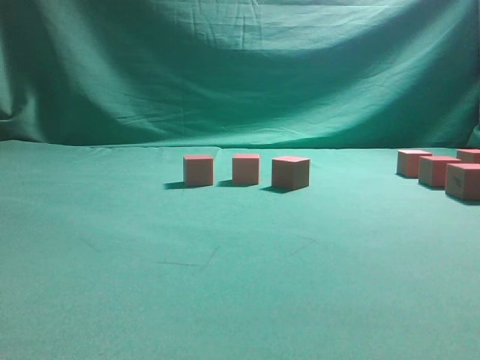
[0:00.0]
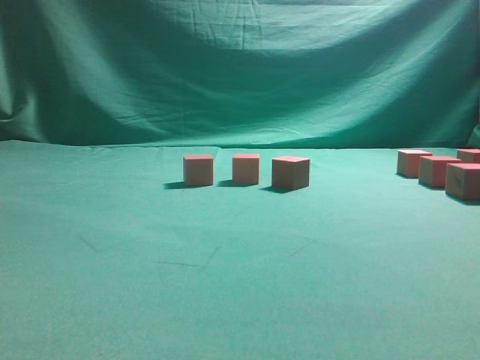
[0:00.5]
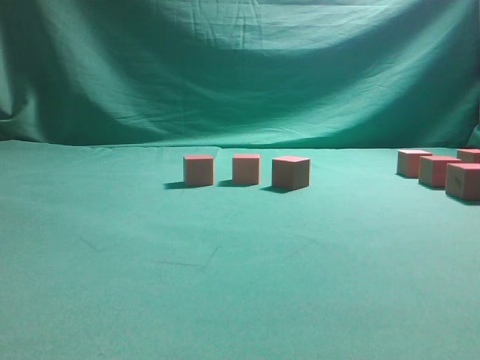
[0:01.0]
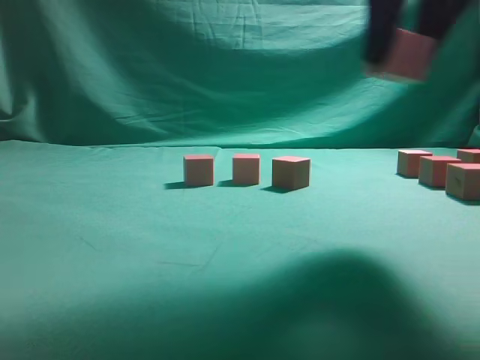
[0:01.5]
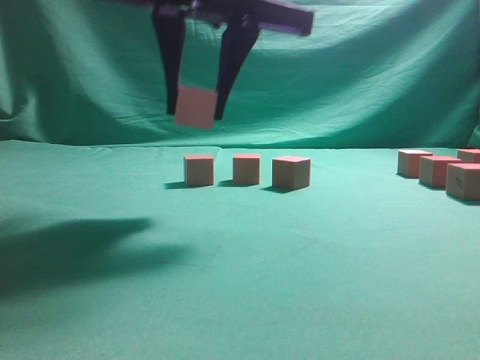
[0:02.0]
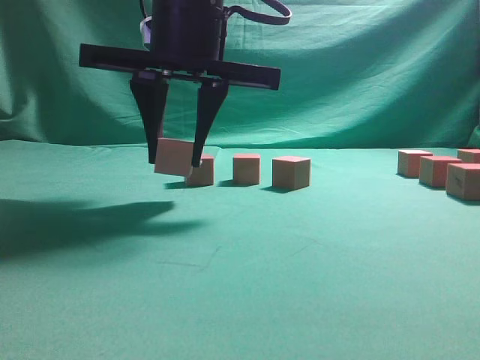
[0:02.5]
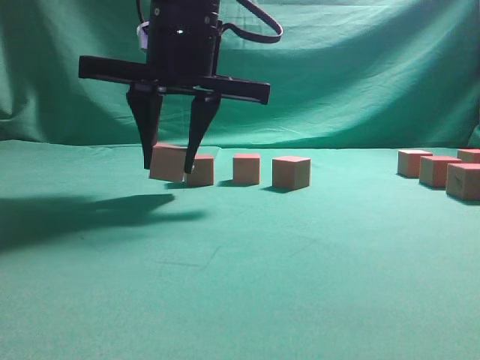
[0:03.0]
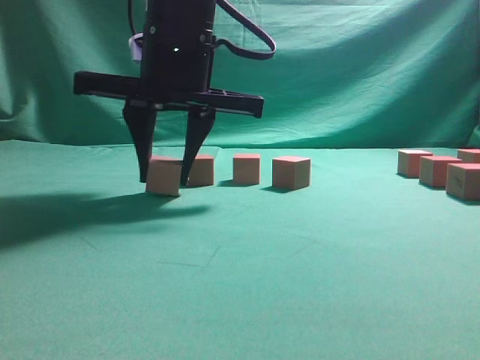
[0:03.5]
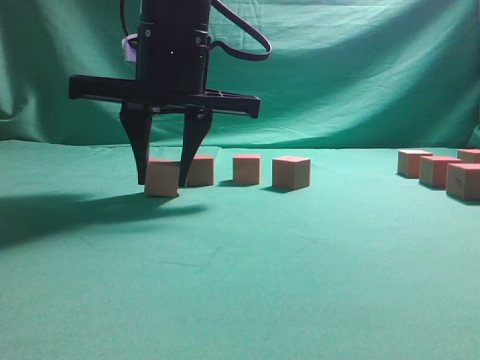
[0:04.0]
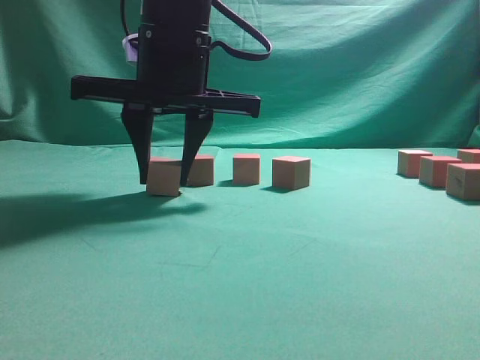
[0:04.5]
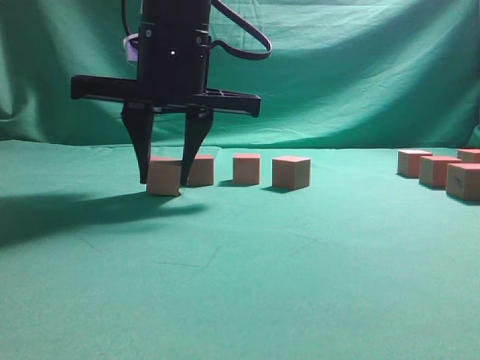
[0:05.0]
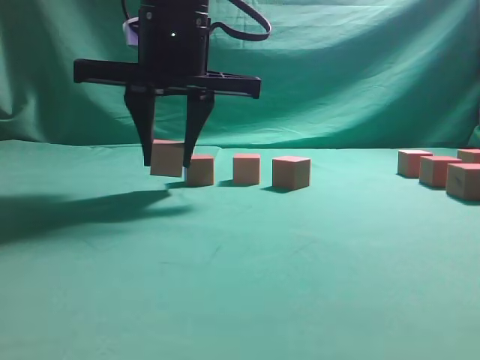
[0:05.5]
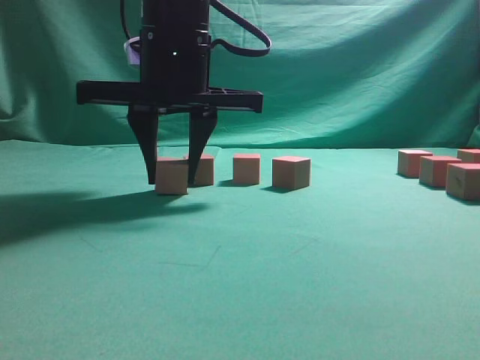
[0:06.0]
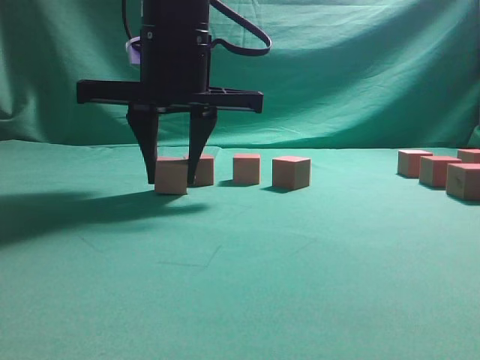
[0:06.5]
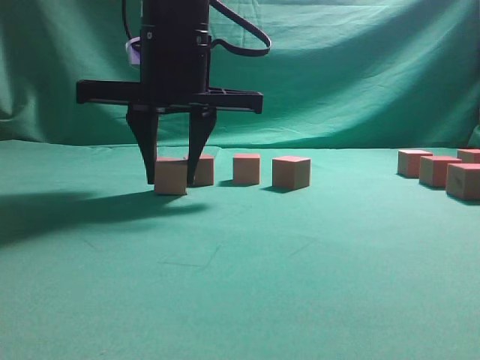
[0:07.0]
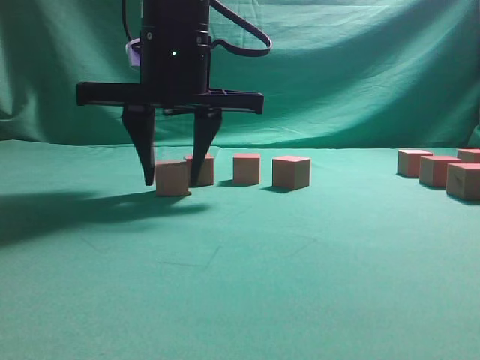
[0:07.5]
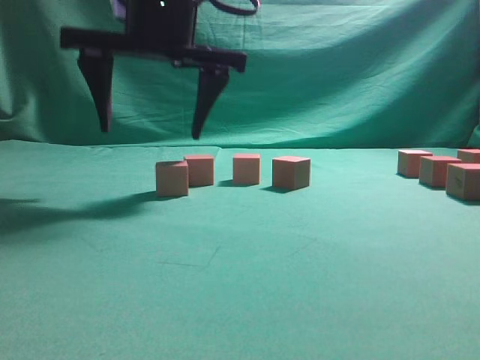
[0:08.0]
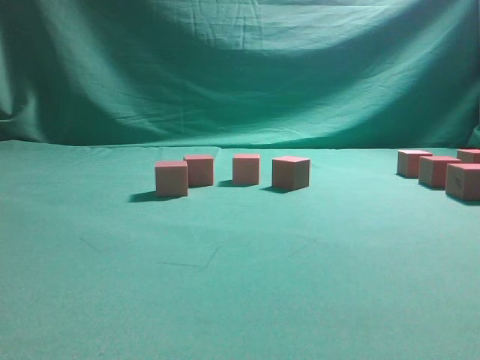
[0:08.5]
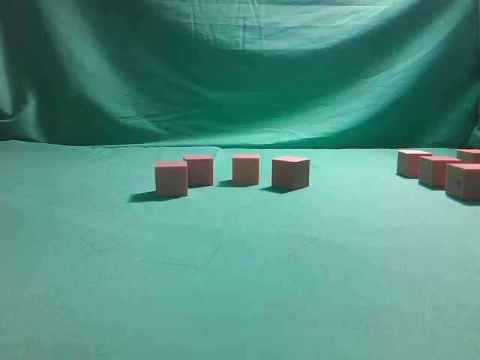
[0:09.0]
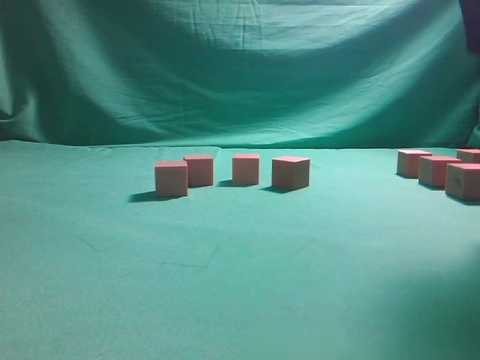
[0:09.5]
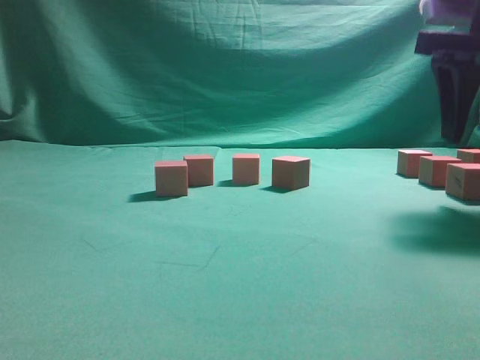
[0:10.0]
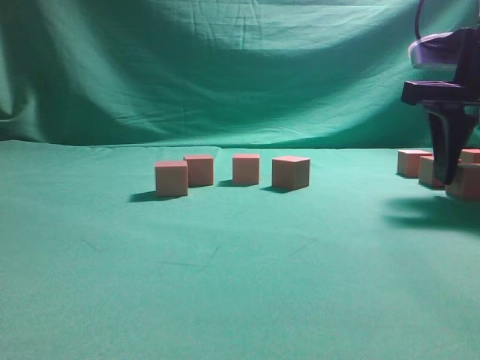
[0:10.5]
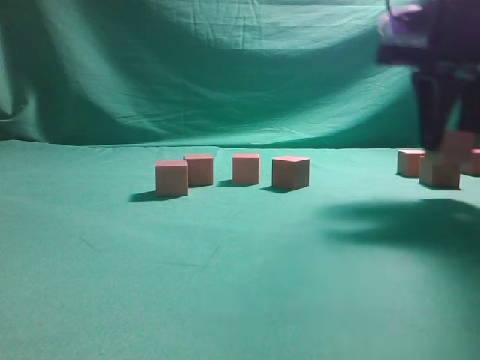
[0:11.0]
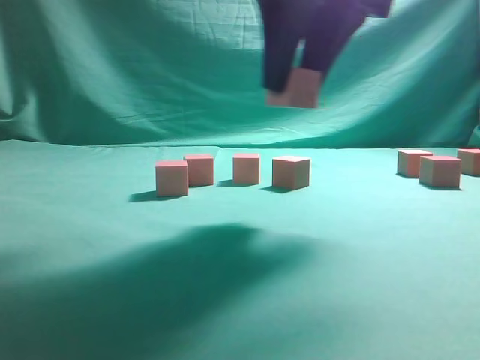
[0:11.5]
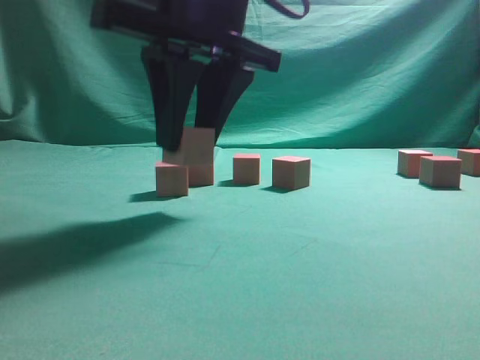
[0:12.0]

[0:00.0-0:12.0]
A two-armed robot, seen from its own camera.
Task of the whole recording: pick up the multiple cubes in two columns one by one and place them in another position on the table.
Step, 0:01.5 to 0:08.0: Place the block at the correct position to assemble the letter S.
Step, 0:08.5 to 0:11.0: Pick up the block on the table.
0:00.0 to 0:02.0: The right gripper is displaced to the left by roughly 30 cm, and closes its fingers.
0:02.0 to 0:04.0: The right gripper travels downward by approximately 5 cm.
0:04.0 to 0:06.0: There are only small adjustments of the grippers.
0:06.0 to 0:08.0: The right gripper moves upward, about 5 cm, and opens.
0:08.0 to 0:10.0: The right gripper shifts about 30 cm to the right.
0:10.0 to 0:12.0: The right gripper goes roughly 25 cm to the left, and closes.

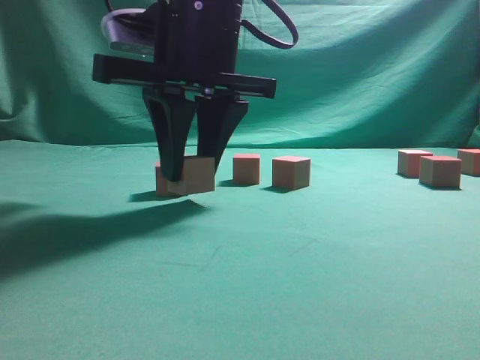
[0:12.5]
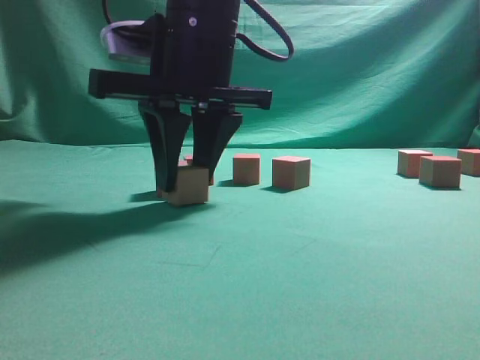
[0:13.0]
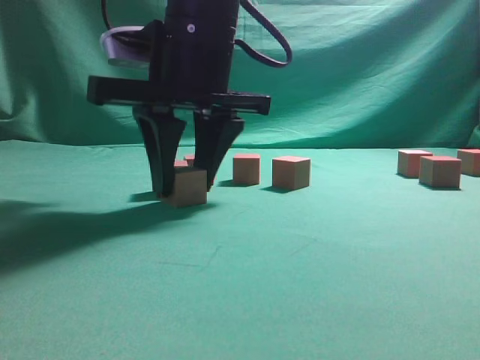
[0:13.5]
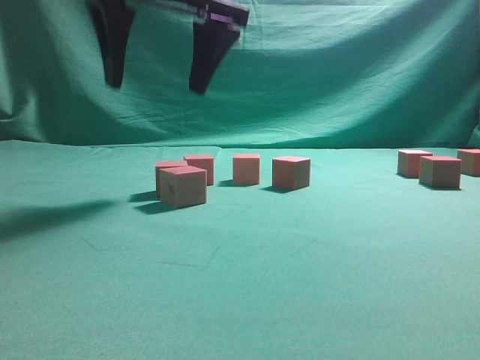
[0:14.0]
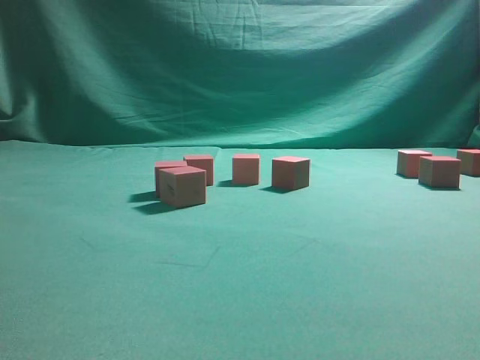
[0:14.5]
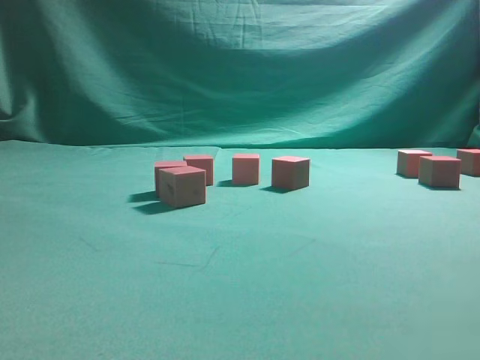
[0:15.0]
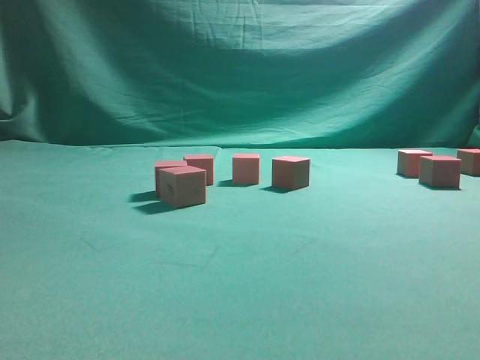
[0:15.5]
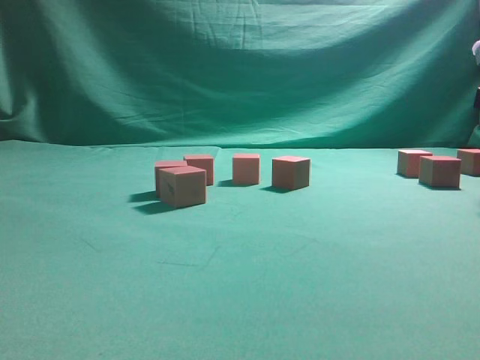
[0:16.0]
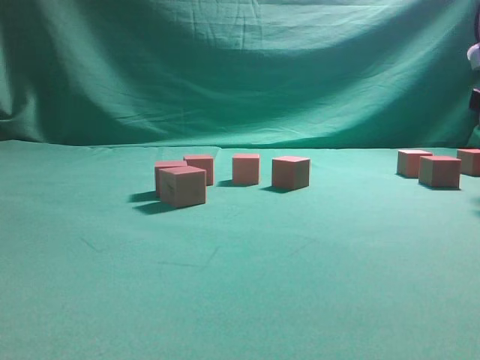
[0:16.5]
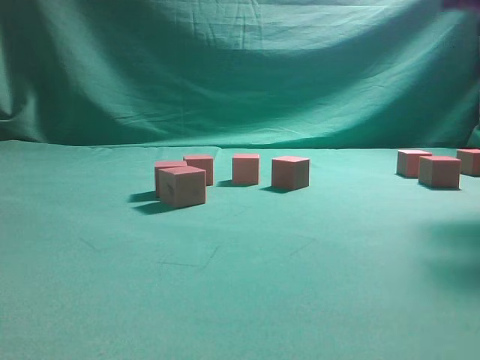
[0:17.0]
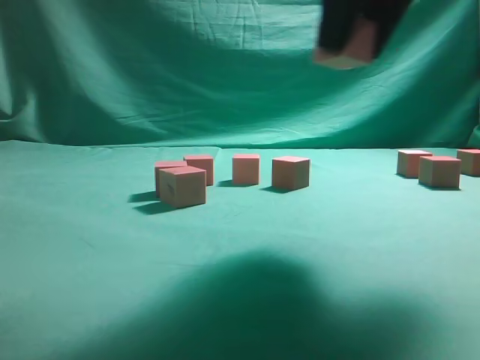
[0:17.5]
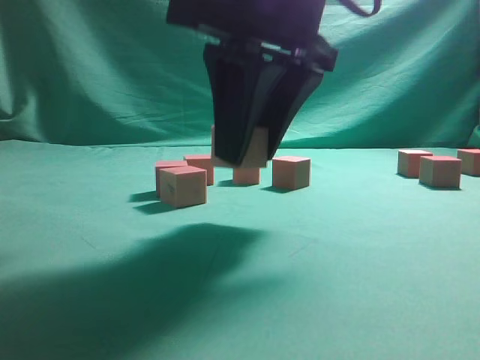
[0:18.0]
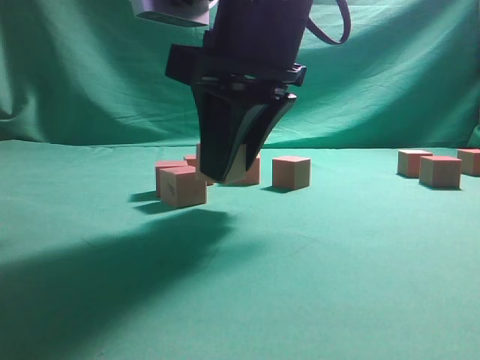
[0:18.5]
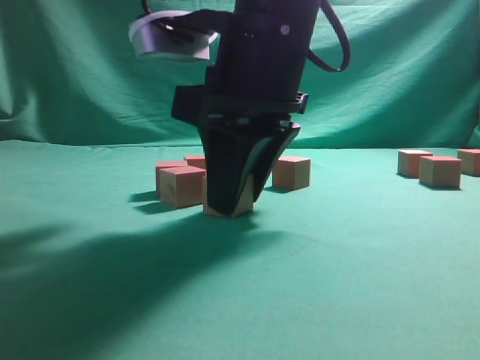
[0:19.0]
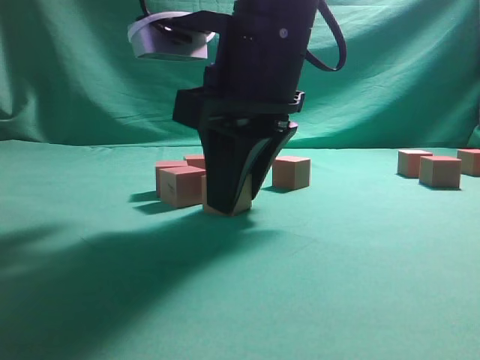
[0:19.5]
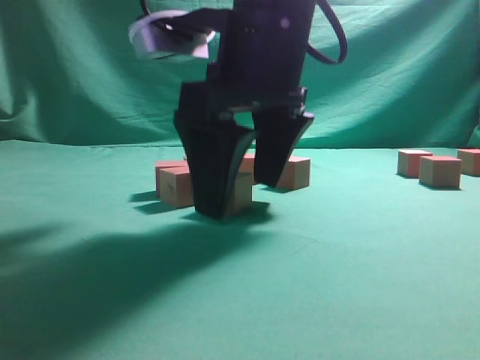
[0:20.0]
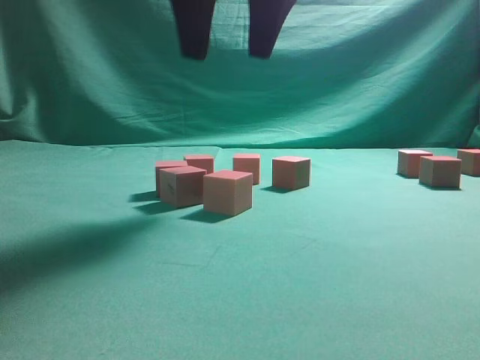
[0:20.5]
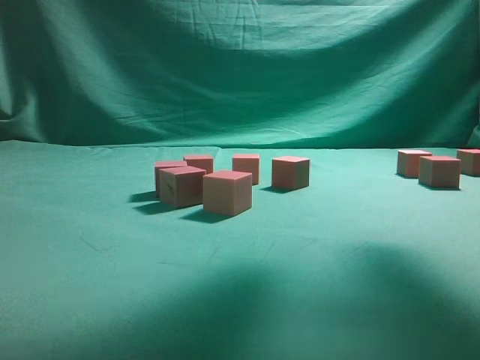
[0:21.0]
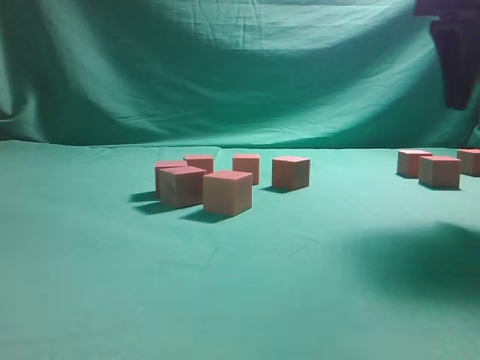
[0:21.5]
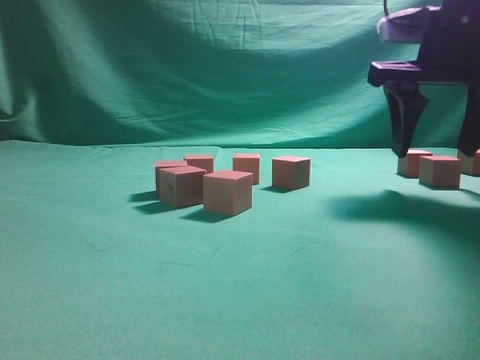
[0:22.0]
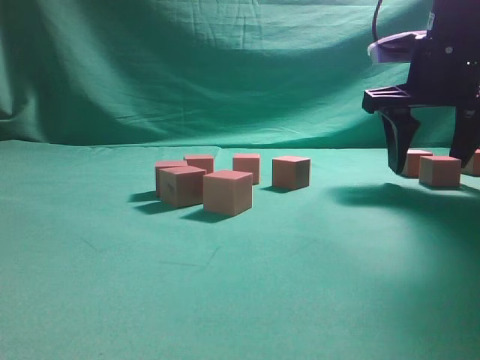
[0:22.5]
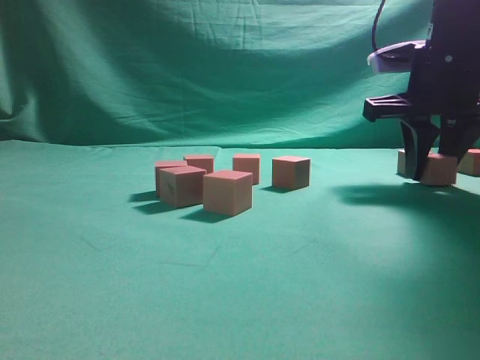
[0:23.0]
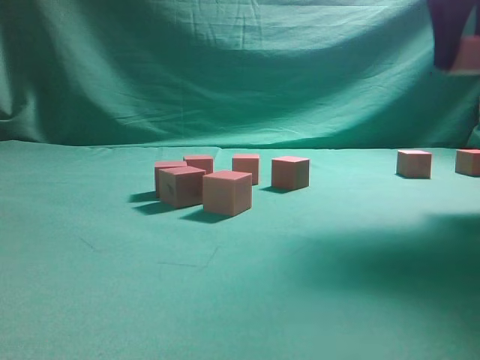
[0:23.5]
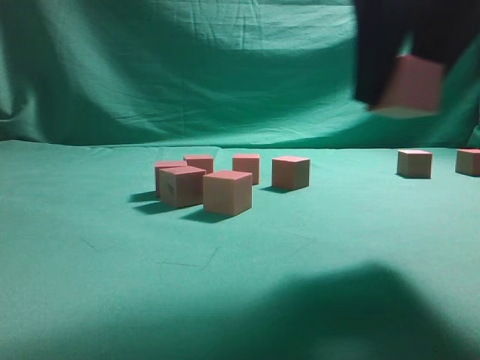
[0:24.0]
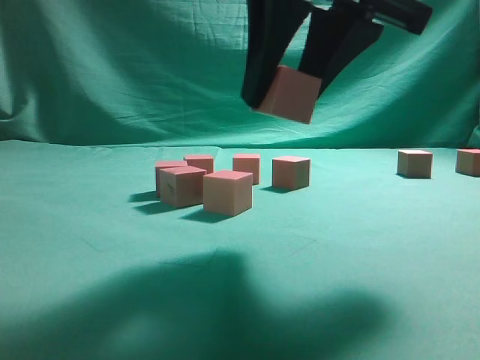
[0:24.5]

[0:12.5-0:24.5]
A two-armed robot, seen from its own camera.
Task of the whole recording: pick up the multiple cubes in two columns one by one and place them in another position on the table.
Step, 0:12.5 to 0:14.0: Place the block at the correct position to assemble the letter S.
Step, 0:17.0 to 0:20.0: Place the block at the correct position to assemble the letter S.
Step, 0:20.5 to 0:23.0: Pick up the block on the table.
0:12.5 to 0:14.5: The right gripper moves upward and to the right, approximately 25 cm, and opens.
0:16.5 to 0:18.5: The right gripper goes some 25 cm to the left.
0:18.5 to 0:20.5: The right gripper moves upward, some 10 cm, and opens its fingers.
0:20.5 to 0:22.5: The right gripper travels to the right and downward by about 25 cm.
0:22.5 to 0:24.5: The right gripper moves backward, to the left and upward, about 20 cm, and closes.

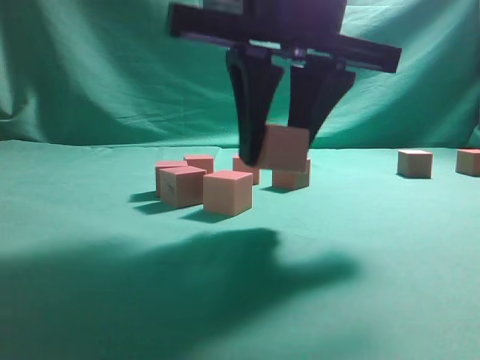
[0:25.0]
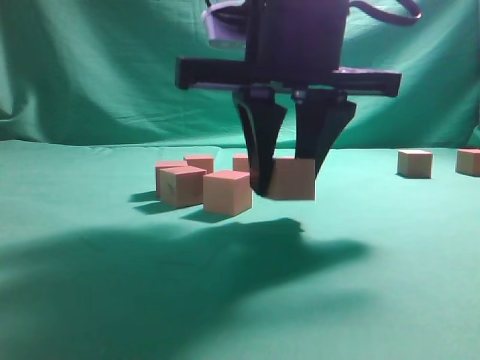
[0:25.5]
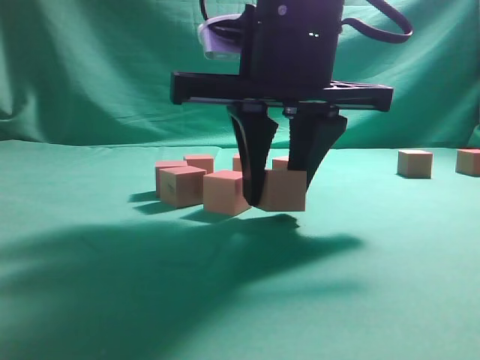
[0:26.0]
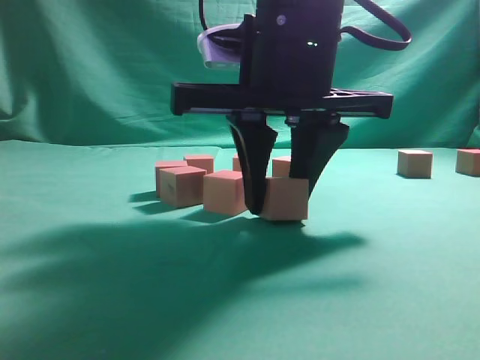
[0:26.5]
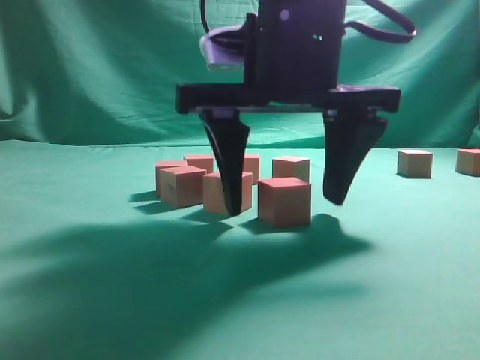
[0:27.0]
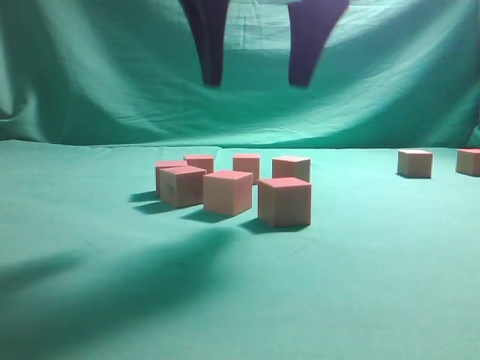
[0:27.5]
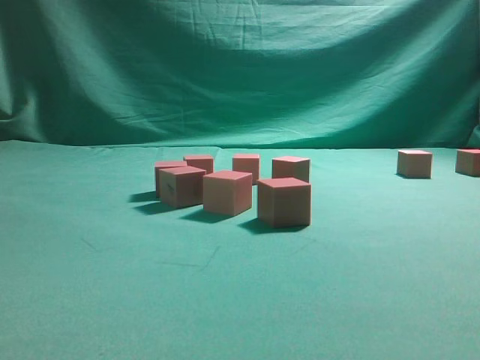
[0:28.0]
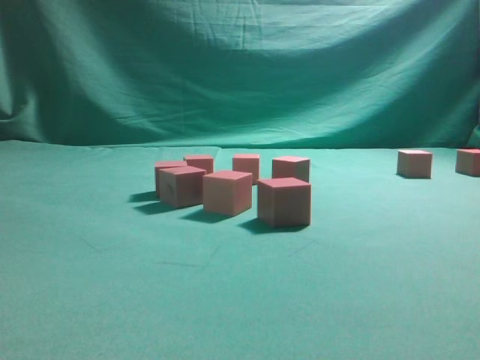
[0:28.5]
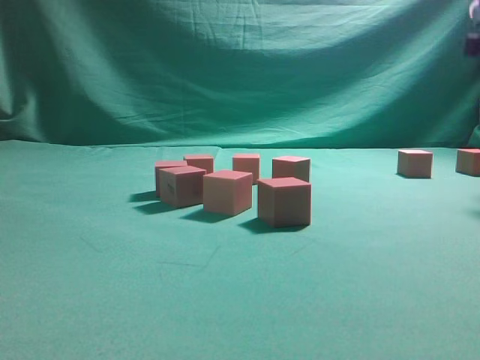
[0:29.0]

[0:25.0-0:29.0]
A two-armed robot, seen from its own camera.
Task of the whole recording: pick up the multiple cubes in two columns one by one and place them in another position on the table.
Step, 0:25.0 to 0:27.5: Place the block at the correct position to assemble the letter S.
0:25.0 to 0:27.0: The right gripper opens.
0:27.0 to 0:29.0: The right gripper moves to the right, about 25 cm.
